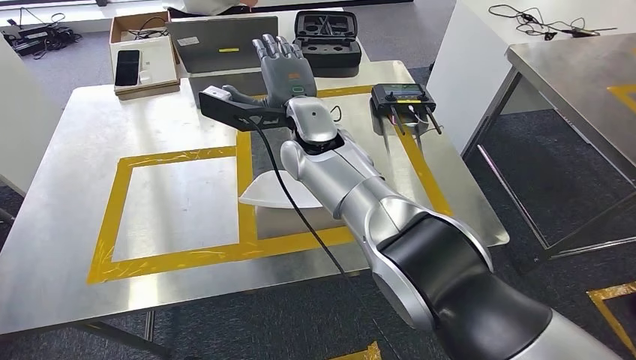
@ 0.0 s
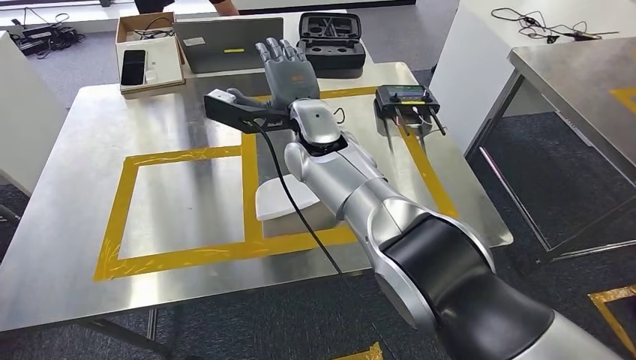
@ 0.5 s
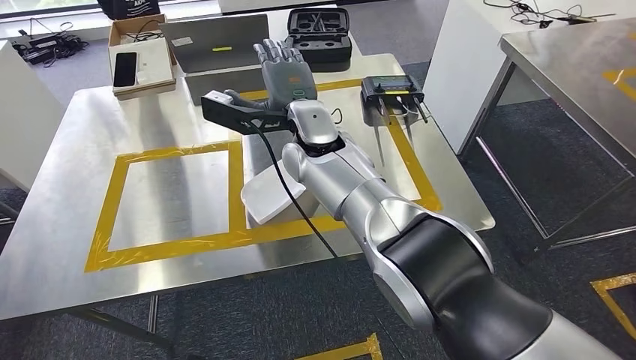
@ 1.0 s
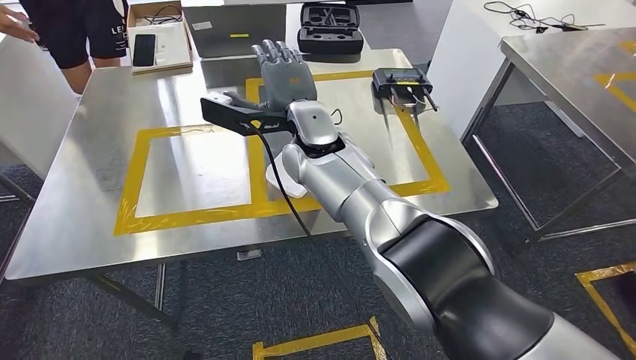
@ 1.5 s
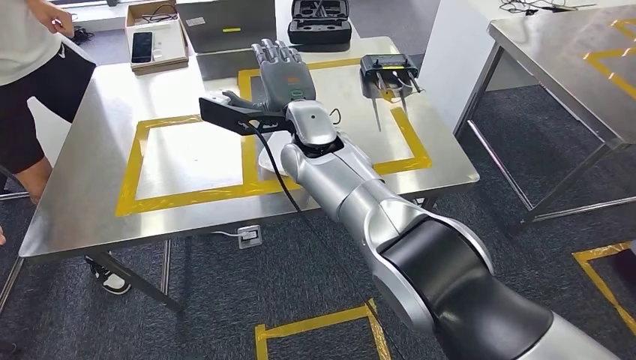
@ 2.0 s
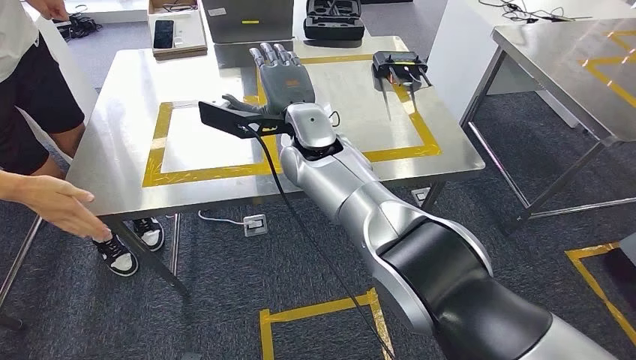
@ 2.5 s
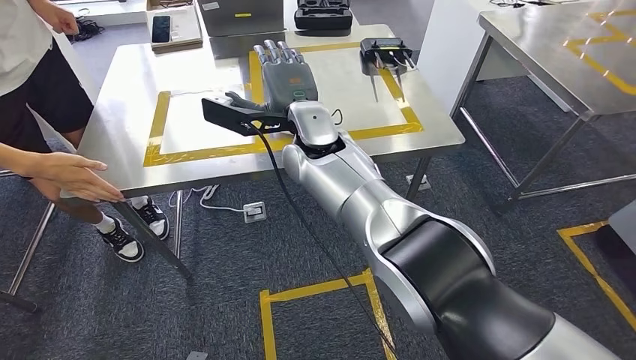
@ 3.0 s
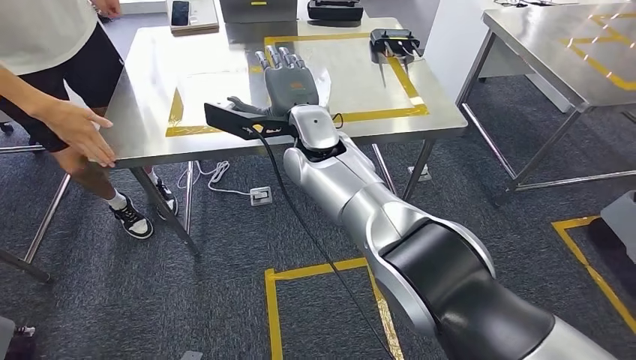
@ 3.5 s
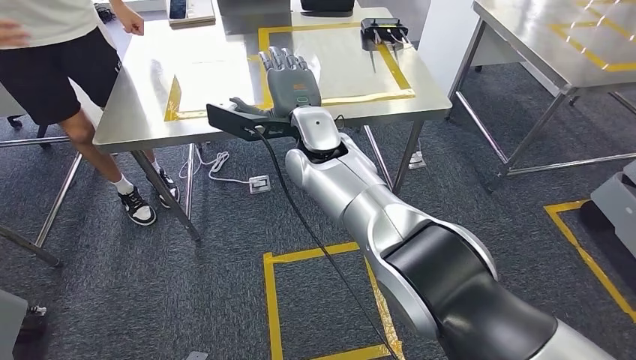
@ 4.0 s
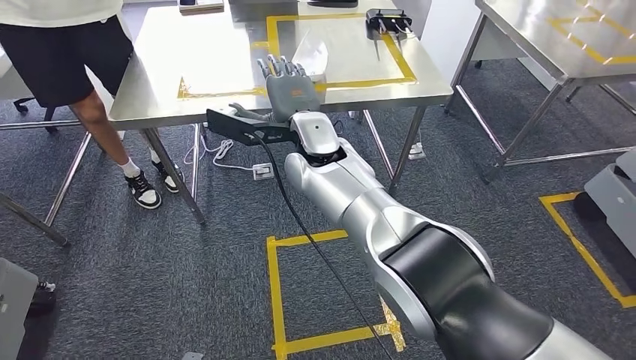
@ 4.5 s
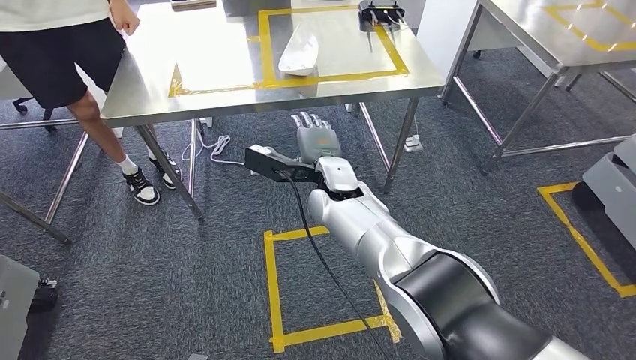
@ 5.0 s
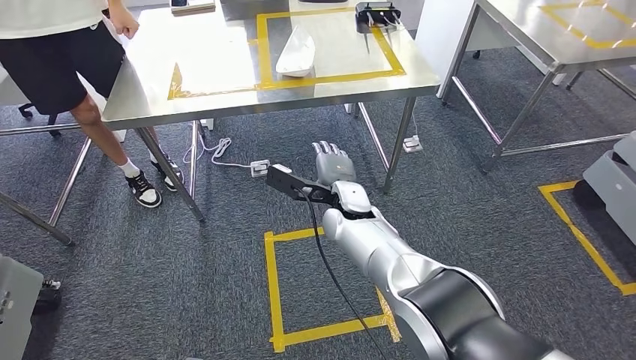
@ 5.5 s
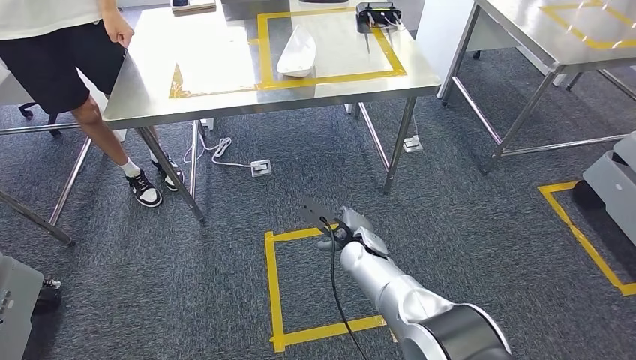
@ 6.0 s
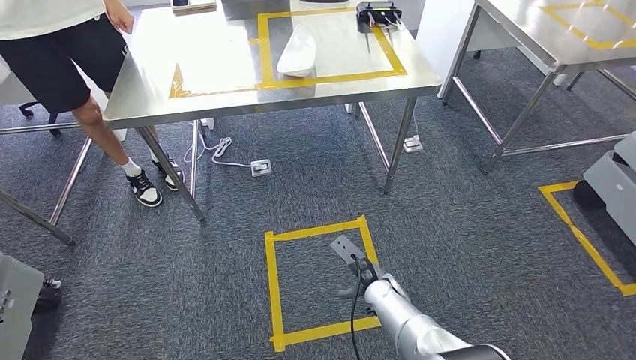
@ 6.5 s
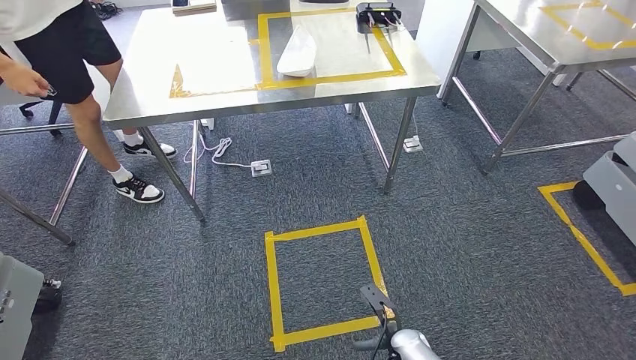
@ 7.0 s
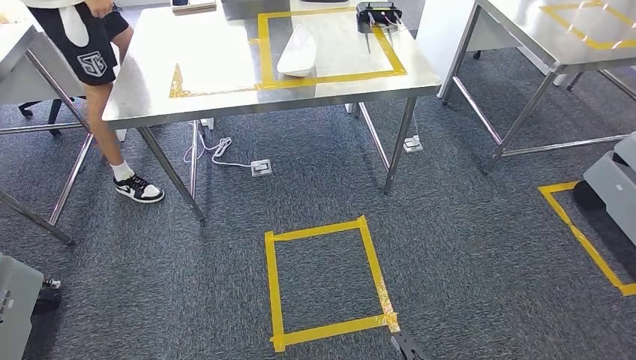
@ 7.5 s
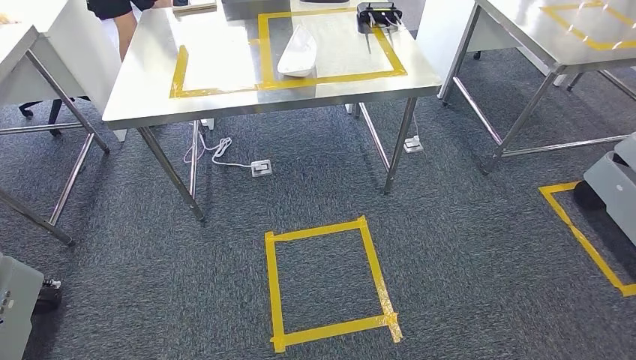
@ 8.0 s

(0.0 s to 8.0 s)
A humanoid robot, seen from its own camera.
Step, 0.0 s - 8.0 s: Return to the initial position at the workbench.
6.0 s - 8.0 s: The left hand travels backward and to the left by about 10 cm. The right hand travels backward and downward by about 40 cm.
